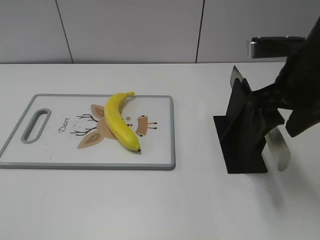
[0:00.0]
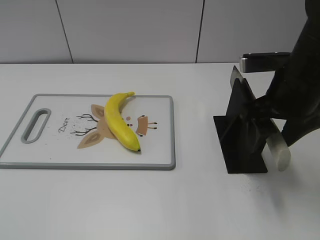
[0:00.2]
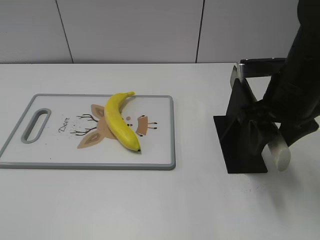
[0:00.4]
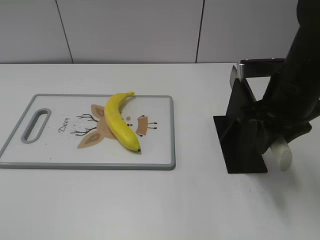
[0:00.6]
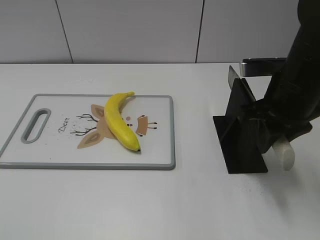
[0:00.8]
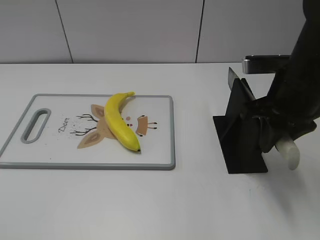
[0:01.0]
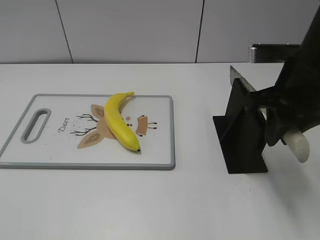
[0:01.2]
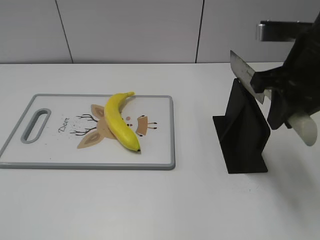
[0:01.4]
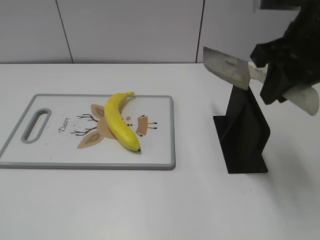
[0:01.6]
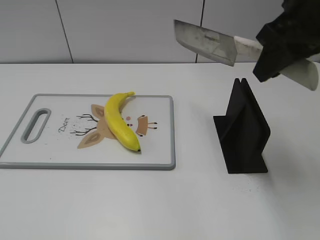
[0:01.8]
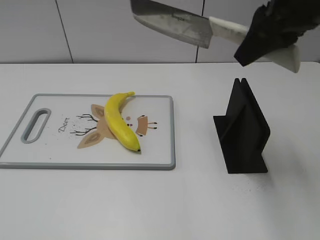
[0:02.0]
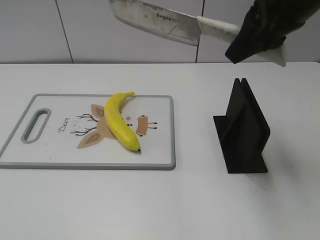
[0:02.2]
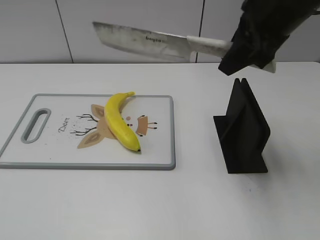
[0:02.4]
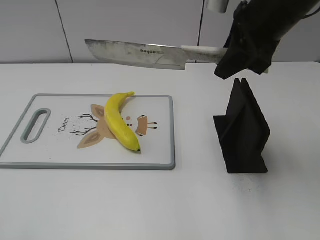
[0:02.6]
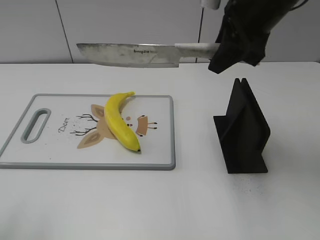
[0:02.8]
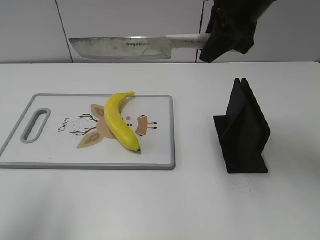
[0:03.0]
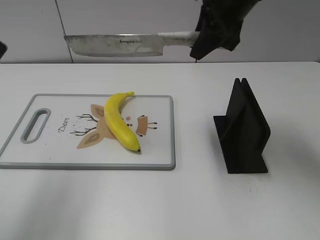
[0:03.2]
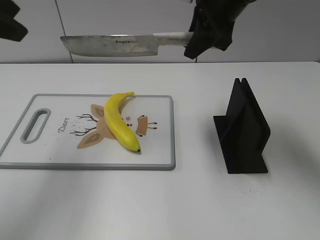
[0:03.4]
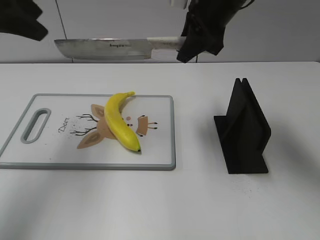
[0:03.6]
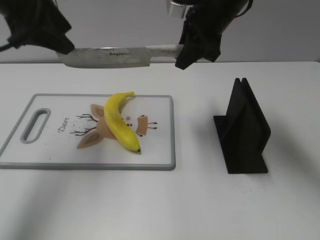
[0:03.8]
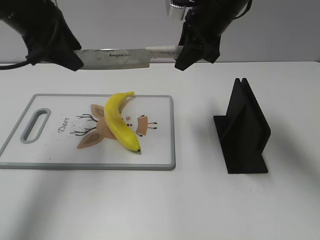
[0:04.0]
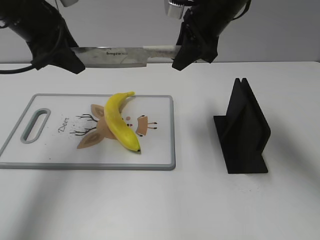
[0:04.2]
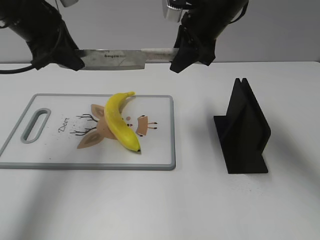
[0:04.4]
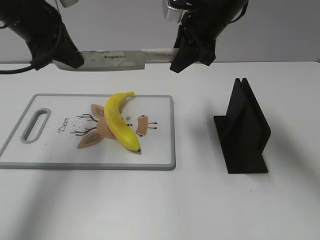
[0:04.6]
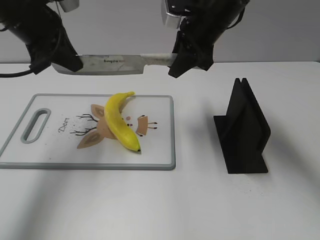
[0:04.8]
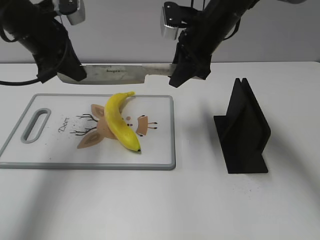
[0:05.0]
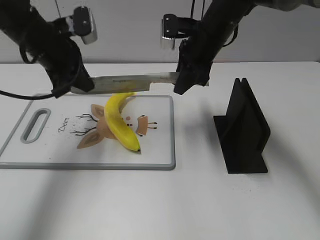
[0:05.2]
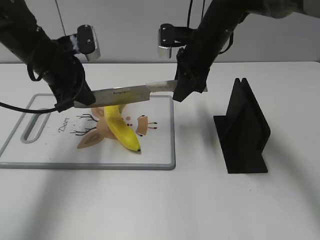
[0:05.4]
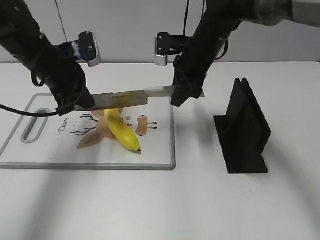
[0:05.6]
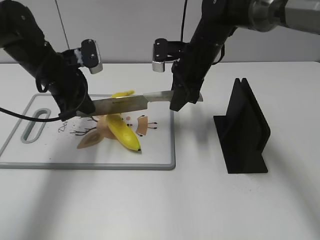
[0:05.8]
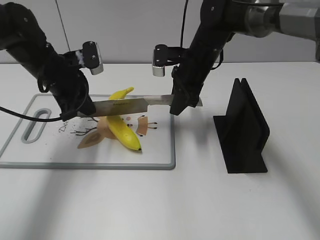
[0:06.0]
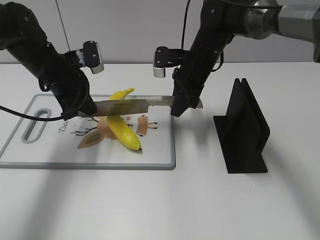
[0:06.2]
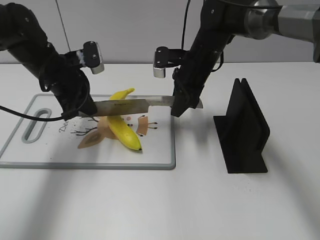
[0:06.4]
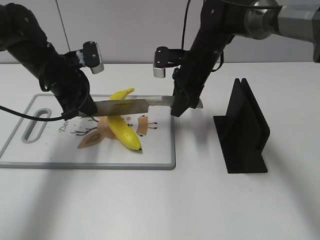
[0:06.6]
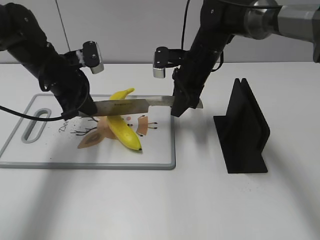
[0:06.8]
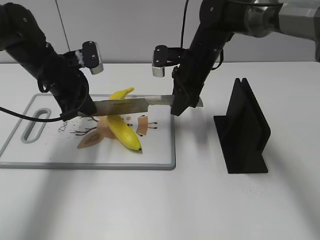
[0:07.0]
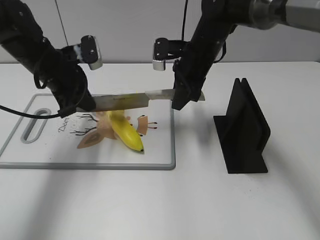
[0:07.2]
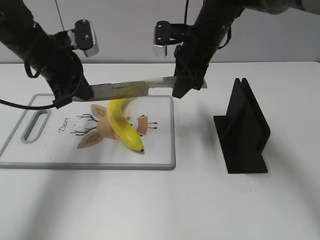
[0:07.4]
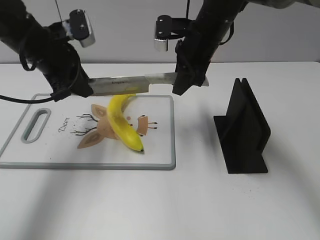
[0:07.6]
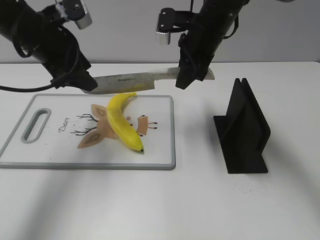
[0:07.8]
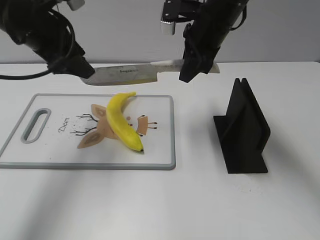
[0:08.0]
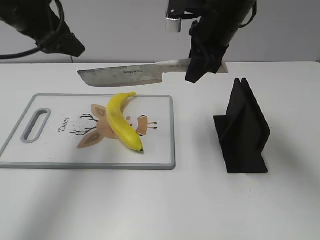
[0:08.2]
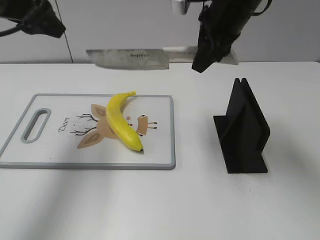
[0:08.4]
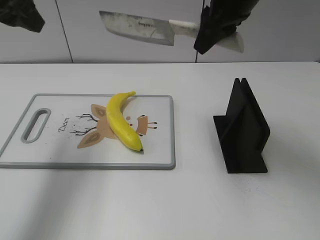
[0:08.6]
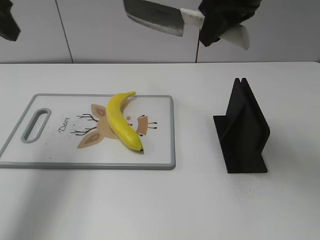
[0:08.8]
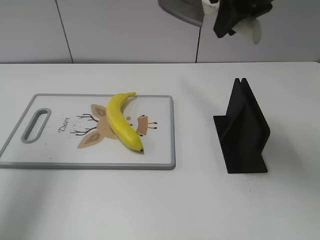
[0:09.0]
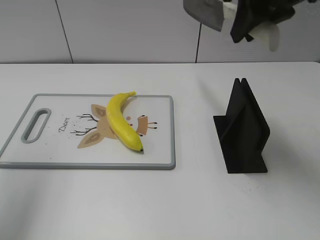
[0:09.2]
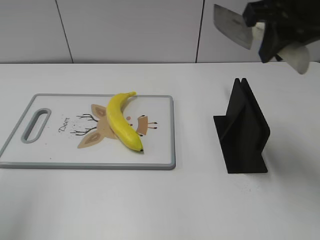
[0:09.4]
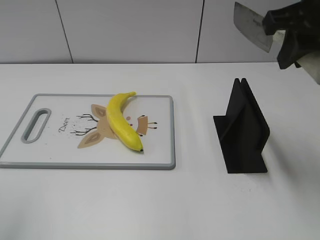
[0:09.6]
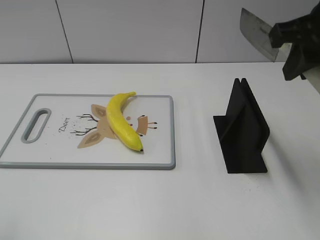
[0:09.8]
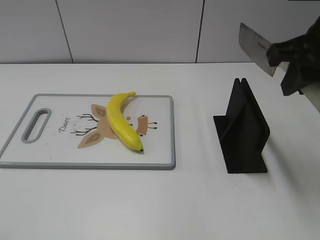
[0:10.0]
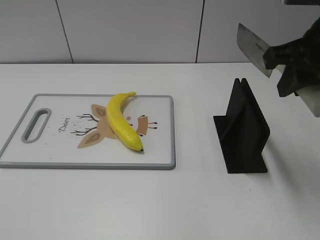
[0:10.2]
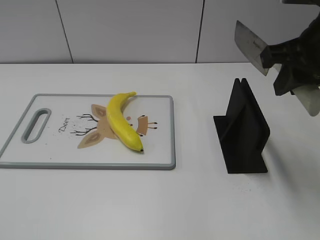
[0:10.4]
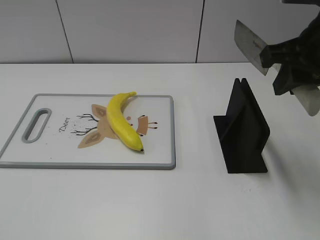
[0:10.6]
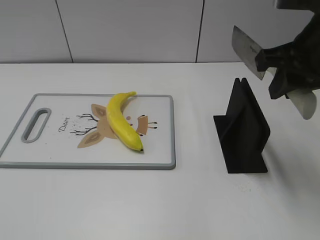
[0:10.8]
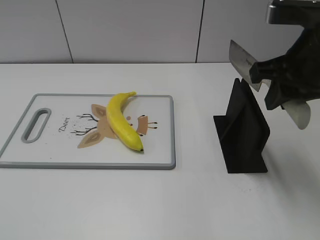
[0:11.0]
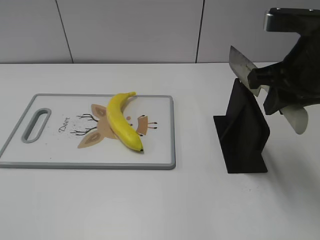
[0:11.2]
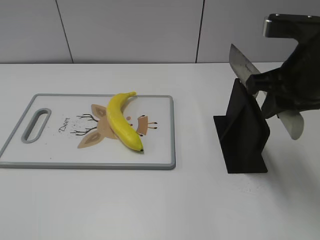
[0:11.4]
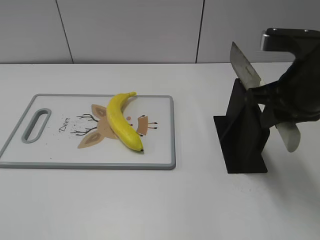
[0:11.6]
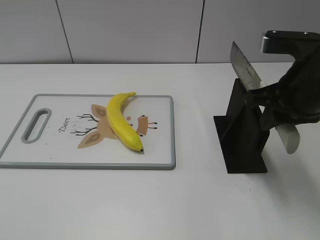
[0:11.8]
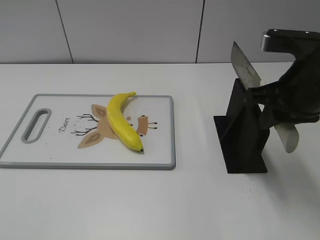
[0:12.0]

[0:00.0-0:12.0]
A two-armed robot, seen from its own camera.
Task of the whole recording: cut plastic banana.
Step, 0:02.0 to 0:06.4: Lift the knife with your right hand.
Step, 0:06.6 to 0:08.4: Cut the banana with your right hand.
Step, 0:08.6 to 0:10.2: Lift the knife with your right hand.
0:00.0 to 0:01.6: The right gripper goes some 5 cm upward, and closes up.
0:01.6 to 0:03.0: The left gripper goes some 15 cm forward and upward; the right gripper heads forward and to the left, covering roughly 10 cm.
0:03.0 to 0:04.4: The right gripper shifts roughly 10 cm forward and downward; the left gripper travels forward by about 25 cm, and closes its fingers.
0:04.4 to 0:06.0: Both grippers move downward, some 10 cm. The left gripper closes its fingers.
0:06.0 to 0:07.6: The two grippers go about 5 cm upward. The left gripper opens.
0:07.6 to 0:09.0: The right gripper heads upward and backward, covering roughly 15 cm. Meanwhile the left gripper moves upward, to the left and backward, roughly 20 cm, and opens its fingers.
0:09.0 to 0:10.4: The left gripper is displaced backward by about 25 cm. Meanwhile the right gripper is displaced backward and to the right by about 10 cm.
0:10.4 to 0:12.0: The right gripper moves downward, roughly 5 cm.

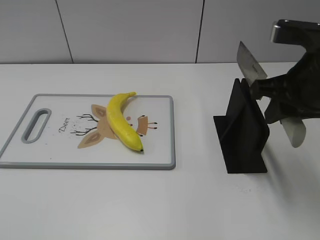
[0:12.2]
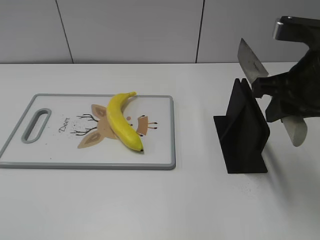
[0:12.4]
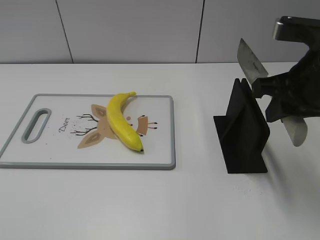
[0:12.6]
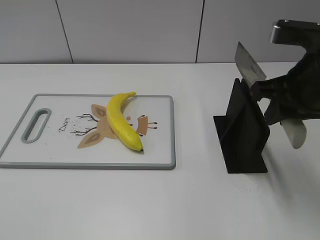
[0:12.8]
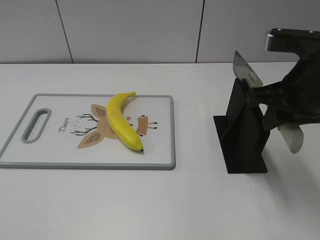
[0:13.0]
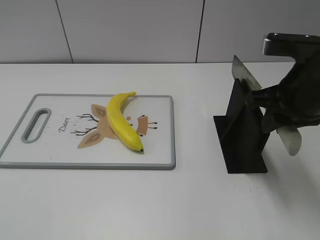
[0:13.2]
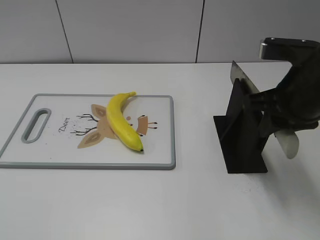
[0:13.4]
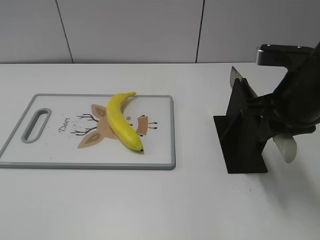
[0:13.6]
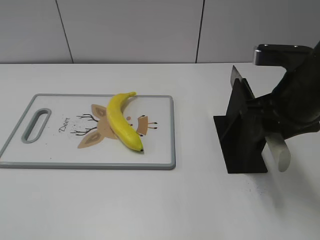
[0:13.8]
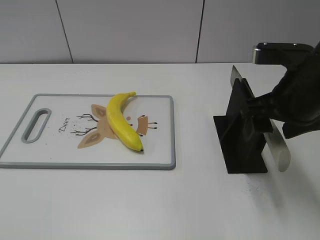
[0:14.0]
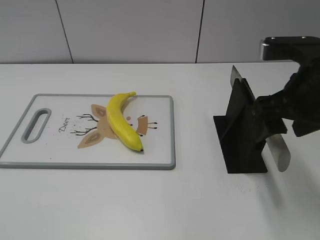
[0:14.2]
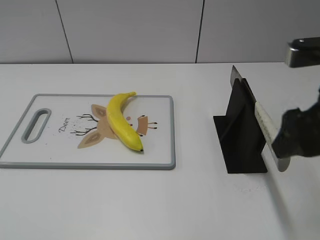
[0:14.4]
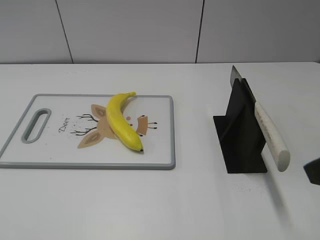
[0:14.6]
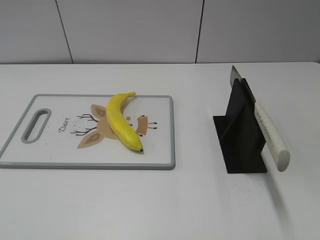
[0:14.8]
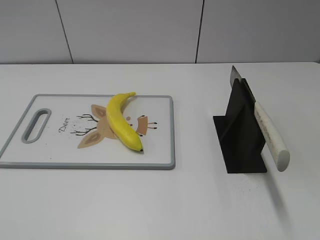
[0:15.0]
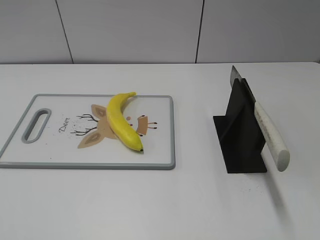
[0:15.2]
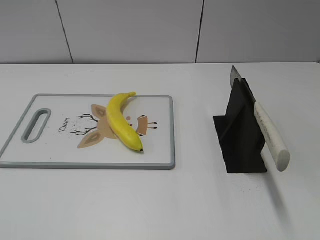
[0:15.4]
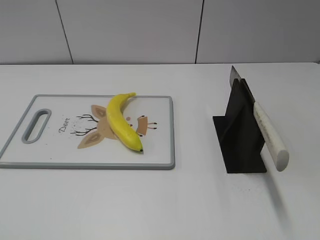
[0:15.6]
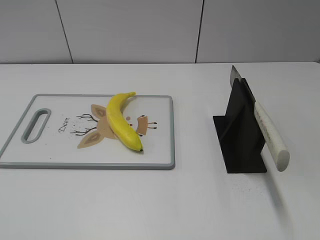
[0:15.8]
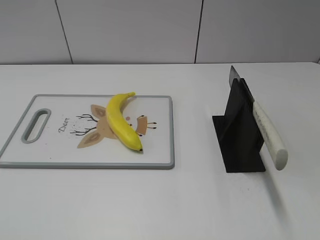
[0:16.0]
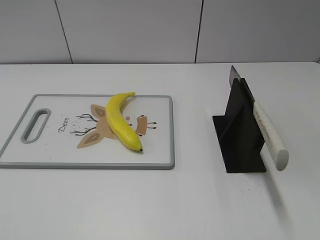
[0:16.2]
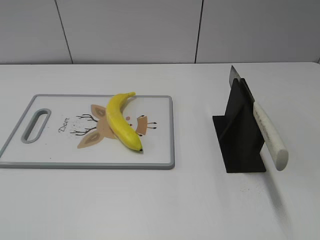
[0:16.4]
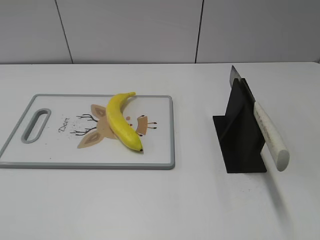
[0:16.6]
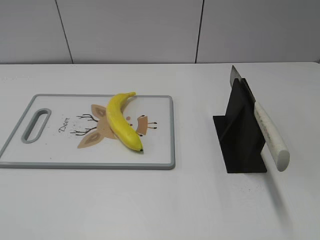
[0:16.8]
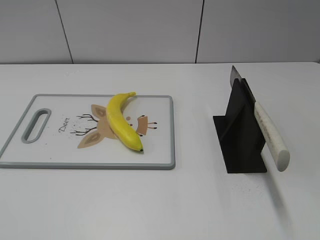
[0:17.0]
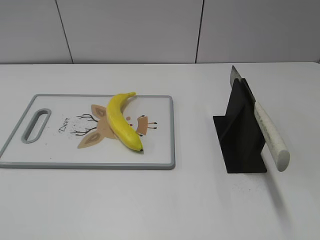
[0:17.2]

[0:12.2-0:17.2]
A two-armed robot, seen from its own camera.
Task of the whole recording: cut plastic banana.
Step, 0:12.2 to 0:17.2: Place the knife on the storage rack with your right hand.
0:12.2 to 0:13.8: The grippers stay close to where they were, moving slightly.
0:13.8 to 0:15.6: The right gripper shifts some 25 cm backward and to the right, and opens.
